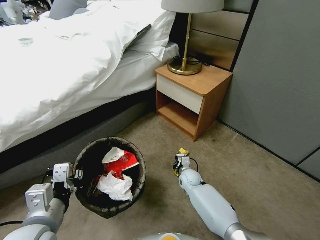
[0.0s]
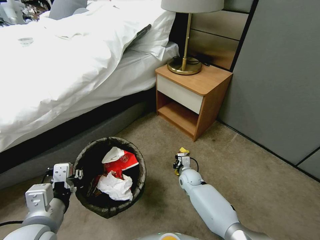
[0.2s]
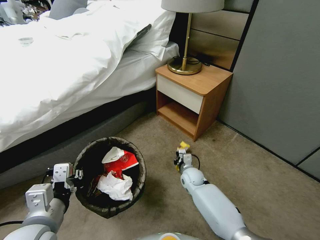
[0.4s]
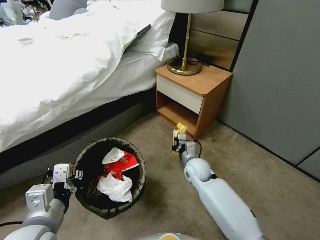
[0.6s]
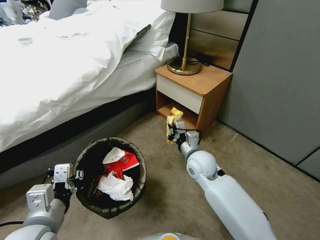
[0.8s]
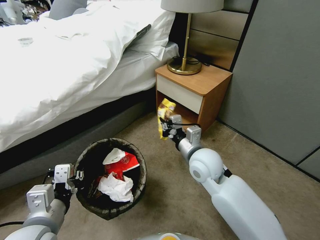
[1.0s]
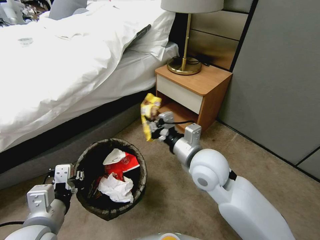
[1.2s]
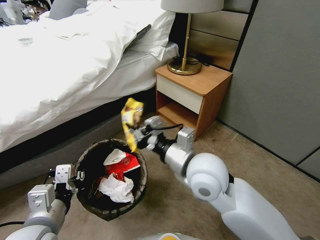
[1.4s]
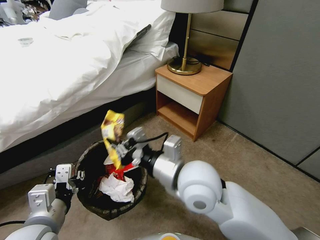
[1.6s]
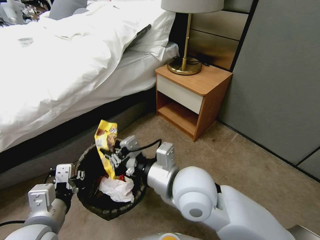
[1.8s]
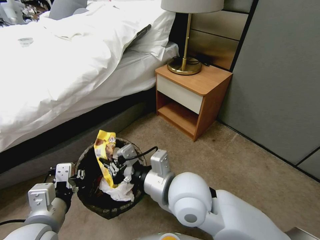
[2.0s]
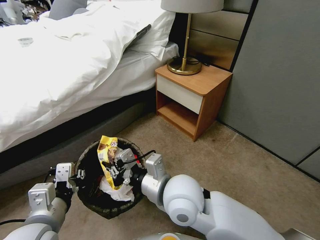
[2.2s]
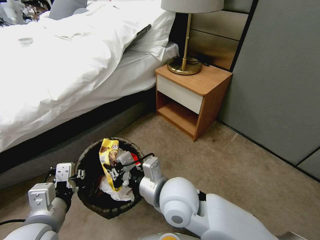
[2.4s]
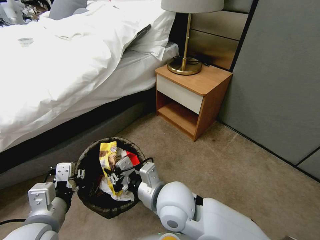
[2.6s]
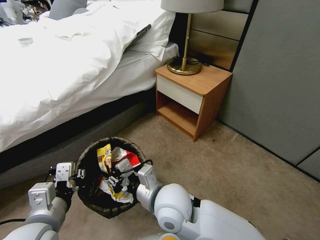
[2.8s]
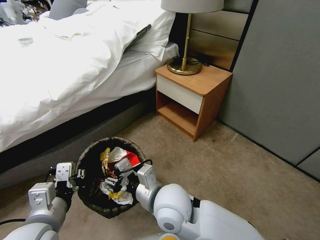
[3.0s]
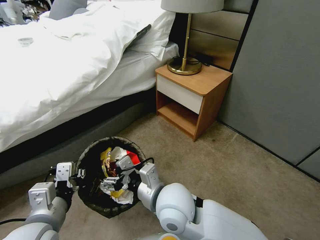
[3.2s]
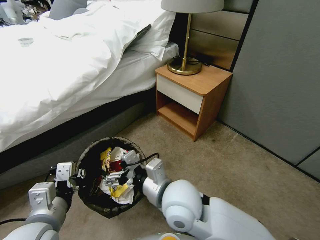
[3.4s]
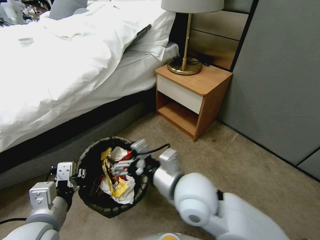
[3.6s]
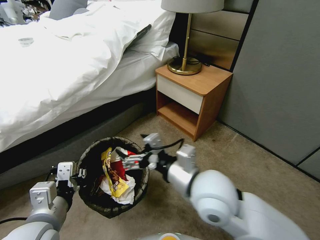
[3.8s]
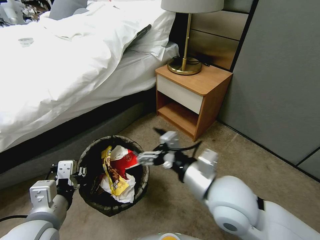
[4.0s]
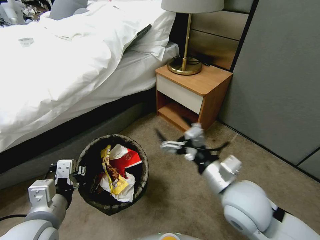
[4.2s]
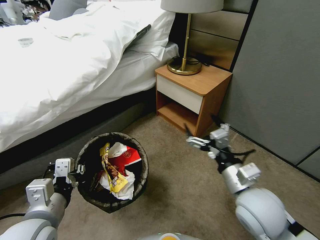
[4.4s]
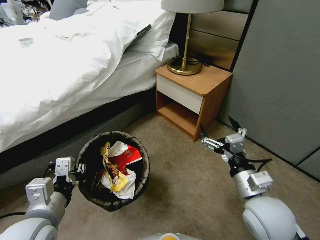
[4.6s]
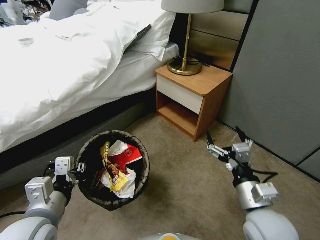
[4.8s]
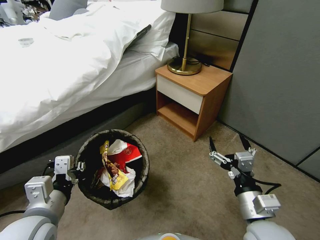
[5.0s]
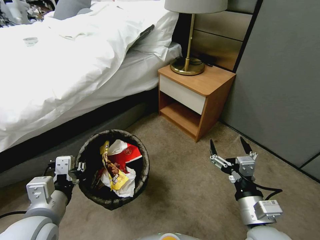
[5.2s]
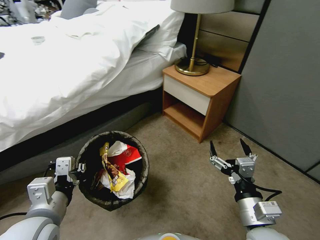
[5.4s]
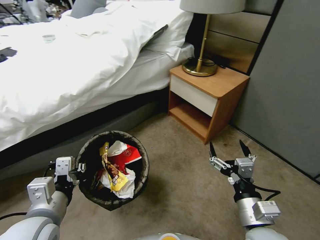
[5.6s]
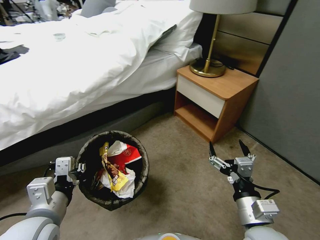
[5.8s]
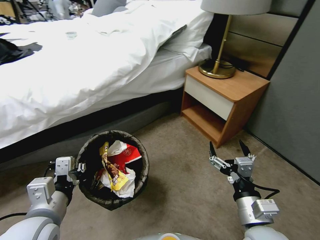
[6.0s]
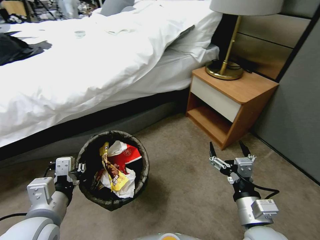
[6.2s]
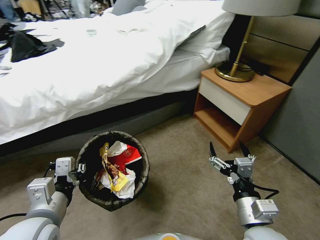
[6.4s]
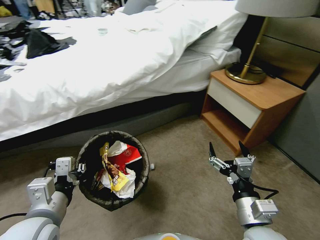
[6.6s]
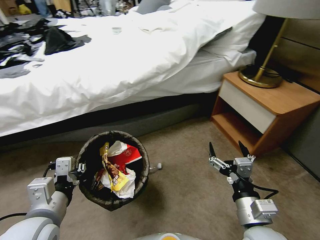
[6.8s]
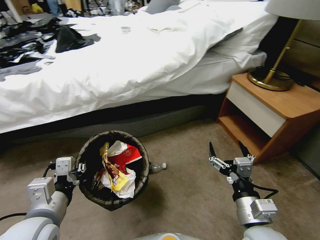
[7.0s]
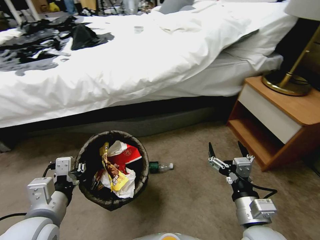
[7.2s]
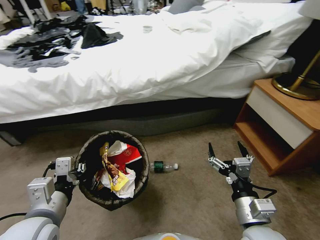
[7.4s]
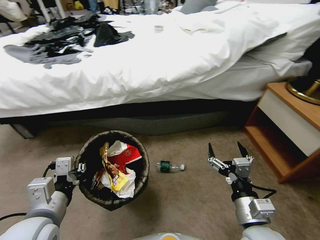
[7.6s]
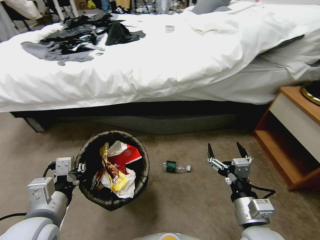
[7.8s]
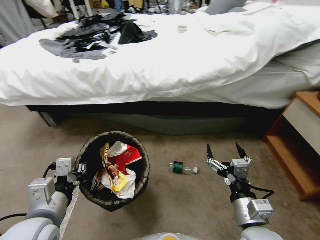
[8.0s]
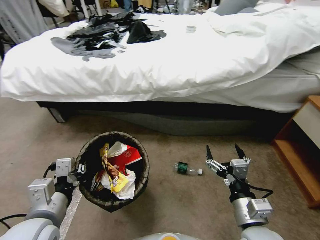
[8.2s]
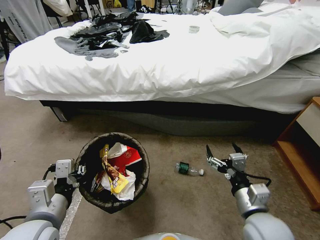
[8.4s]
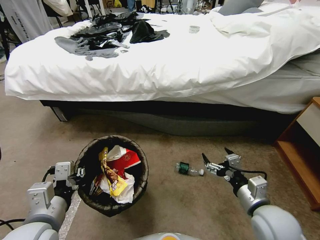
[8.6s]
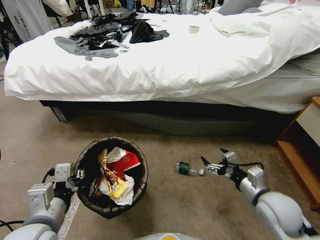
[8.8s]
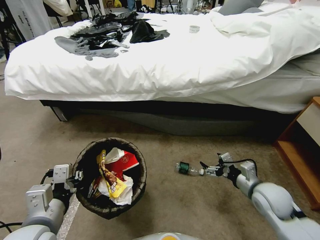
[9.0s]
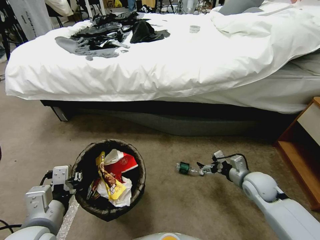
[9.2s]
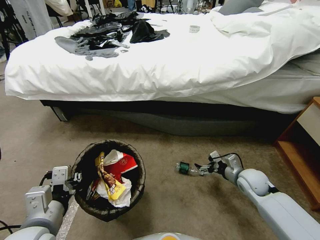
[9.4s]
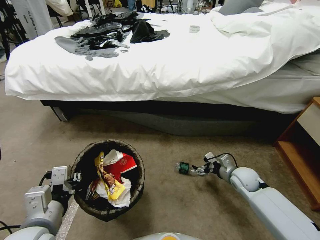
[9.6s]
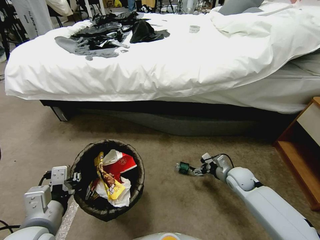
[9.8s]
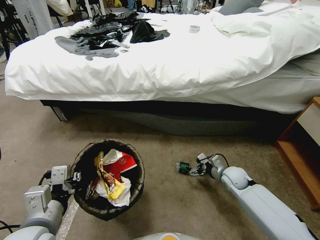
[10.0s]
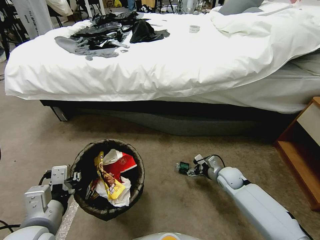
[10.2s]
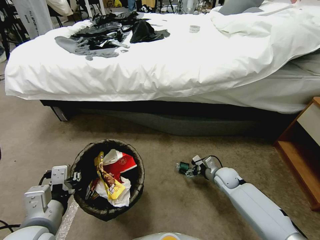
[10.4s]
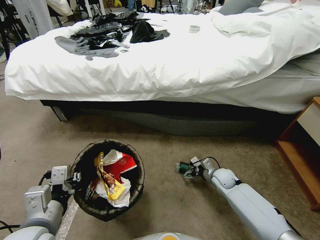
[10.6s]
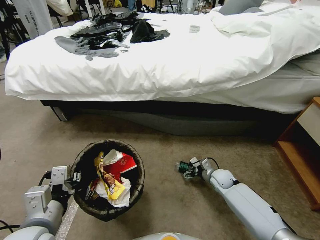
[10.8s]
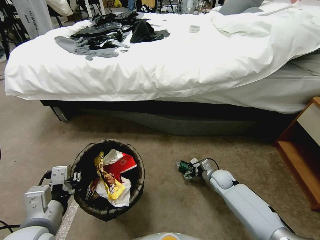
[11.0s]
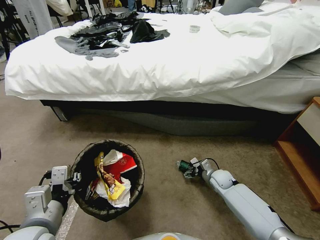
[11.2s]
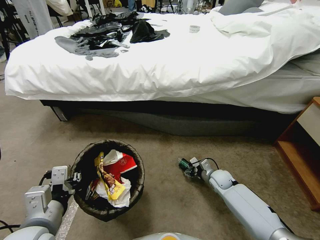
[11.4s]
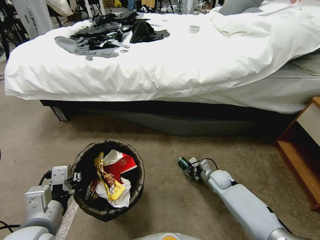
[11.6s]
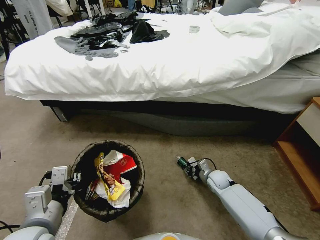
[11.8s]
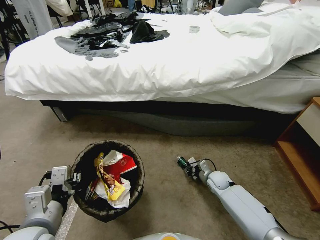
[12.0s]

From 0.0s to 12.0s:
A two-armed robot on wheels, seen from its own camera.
Task of the whole recording: Pick up the trash bin, then pick up the garbage from the floor and place it into the trash bin.
From 0.0s to 1.6s: The right gripper shifts approximately 35 cm upward.
From 1.6s to 3.0s: The right gripper is displaced downward and to the left by approximately 10 cm, and opens its fingers.
From 3.0s to 4.4s: The right gripper travels to the right by some 20 cm, and opens.
From 4.4s to 6.0s: The right gripper shifts about 5 cm backward.
From 7.6s to 9.0s: The right gripper shifts about 15 cm forward, to the right and downward.
From 9.0s to 10.4s: The right gripper moves downward, forward and to the left, roughly 20 cm.
From 10.4s to 12.0s: The right gripper shifts by some 5 cm, and closes up.

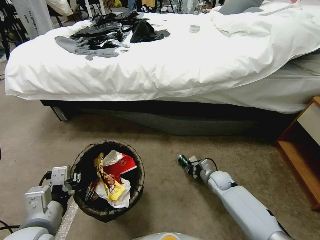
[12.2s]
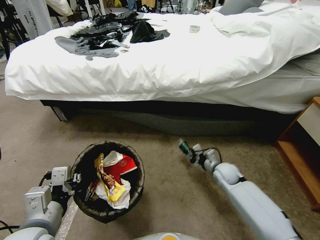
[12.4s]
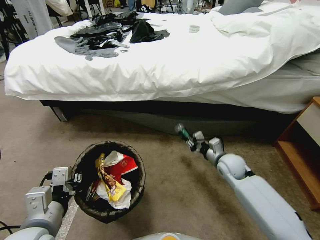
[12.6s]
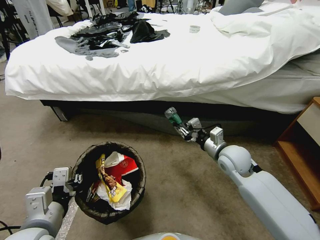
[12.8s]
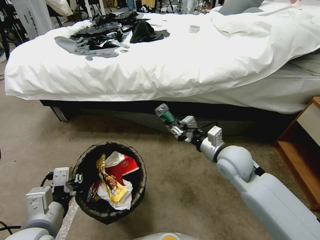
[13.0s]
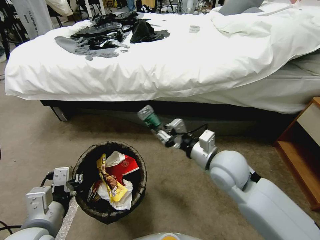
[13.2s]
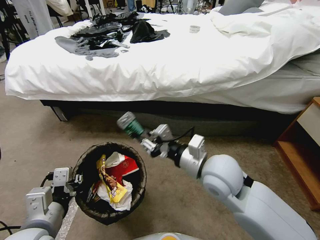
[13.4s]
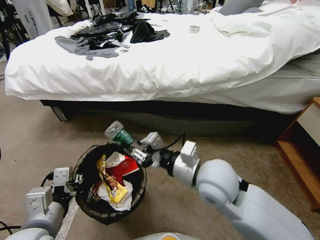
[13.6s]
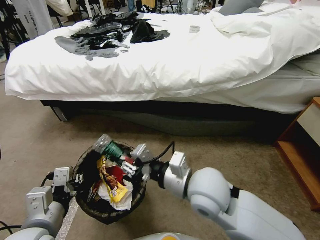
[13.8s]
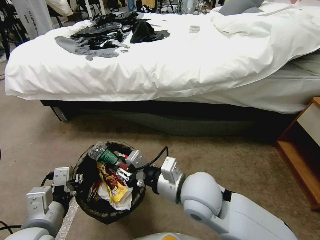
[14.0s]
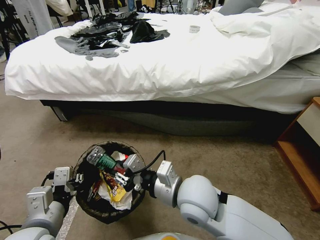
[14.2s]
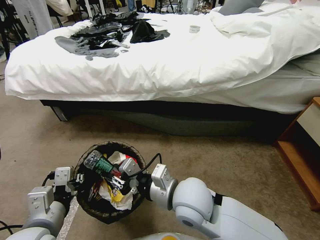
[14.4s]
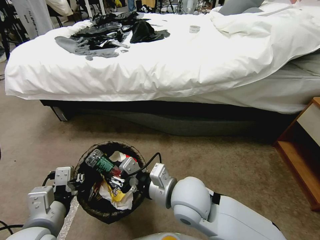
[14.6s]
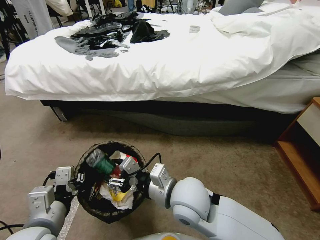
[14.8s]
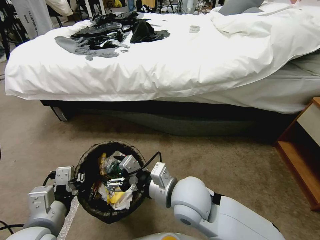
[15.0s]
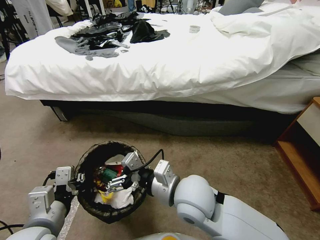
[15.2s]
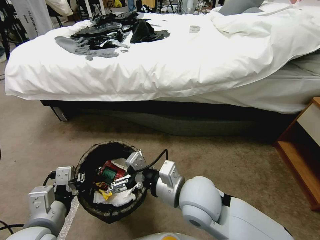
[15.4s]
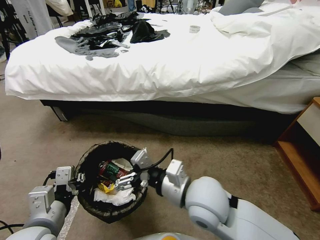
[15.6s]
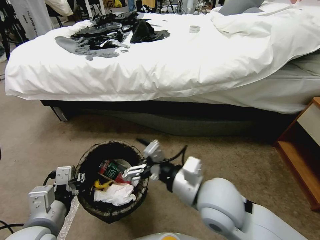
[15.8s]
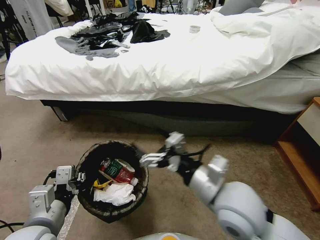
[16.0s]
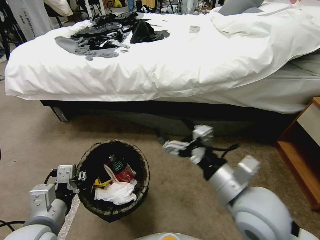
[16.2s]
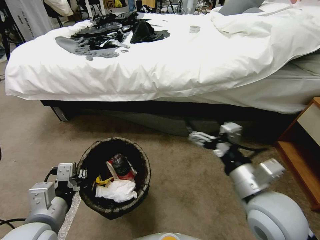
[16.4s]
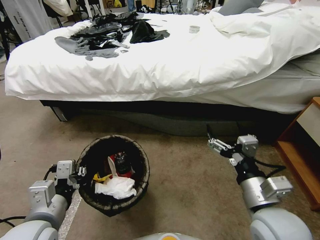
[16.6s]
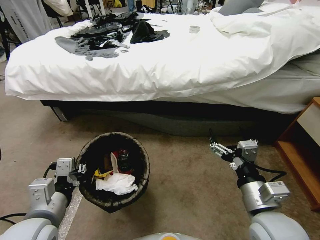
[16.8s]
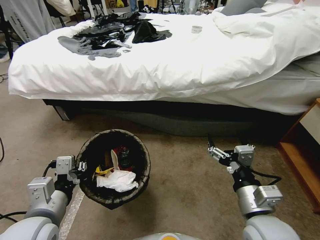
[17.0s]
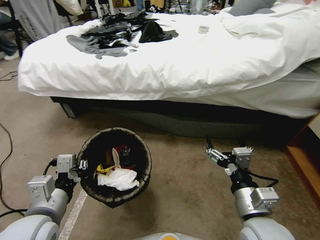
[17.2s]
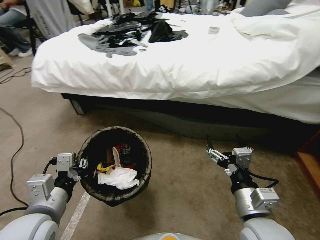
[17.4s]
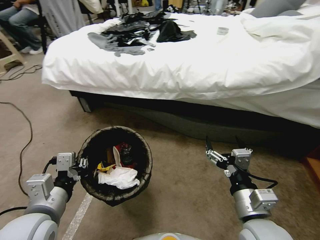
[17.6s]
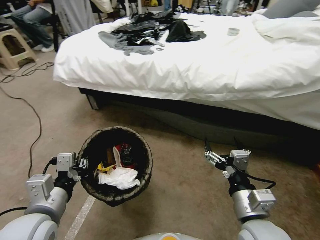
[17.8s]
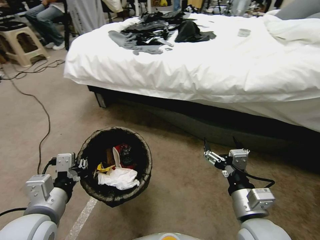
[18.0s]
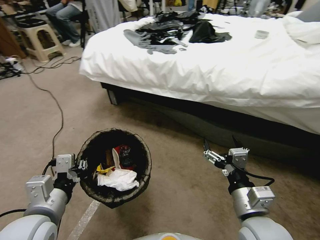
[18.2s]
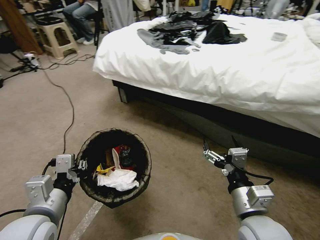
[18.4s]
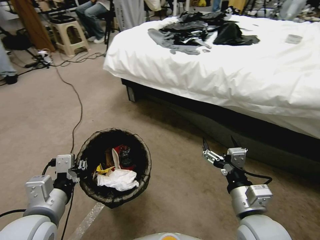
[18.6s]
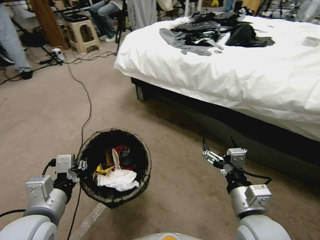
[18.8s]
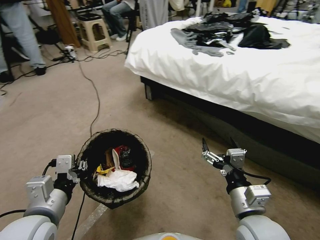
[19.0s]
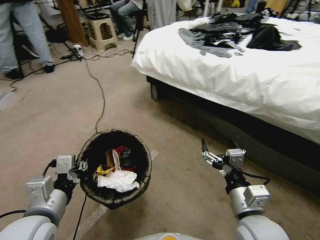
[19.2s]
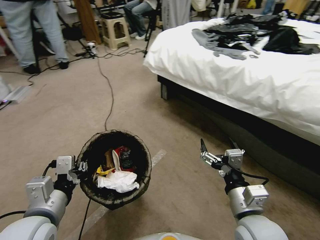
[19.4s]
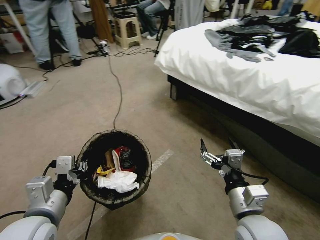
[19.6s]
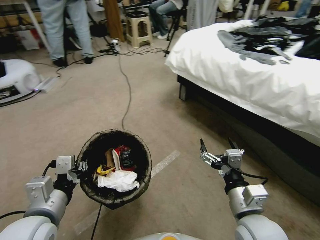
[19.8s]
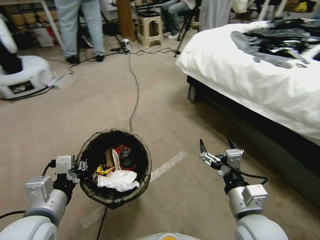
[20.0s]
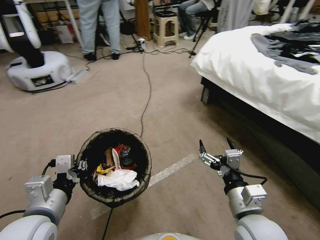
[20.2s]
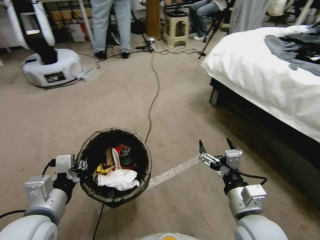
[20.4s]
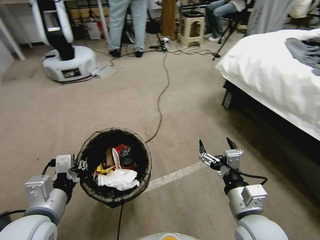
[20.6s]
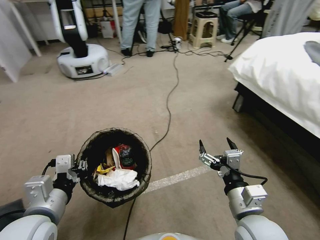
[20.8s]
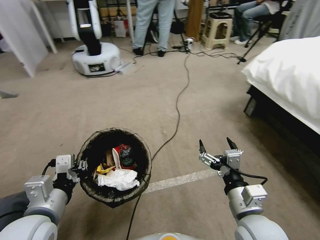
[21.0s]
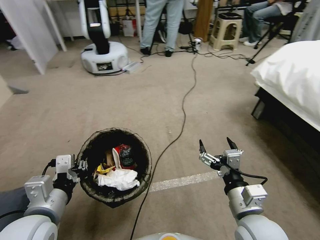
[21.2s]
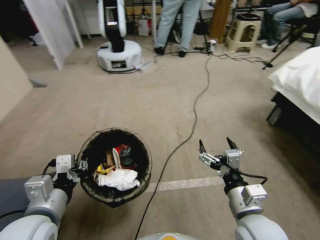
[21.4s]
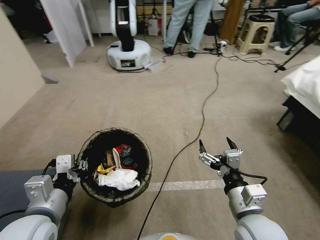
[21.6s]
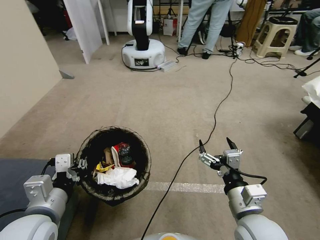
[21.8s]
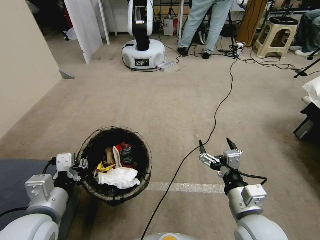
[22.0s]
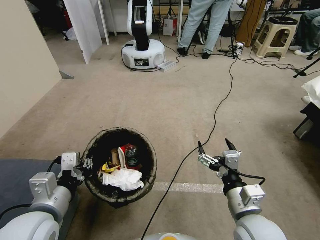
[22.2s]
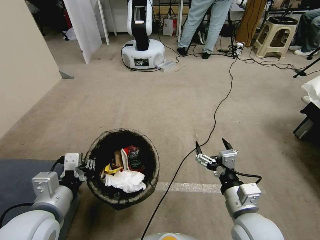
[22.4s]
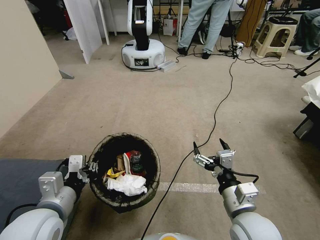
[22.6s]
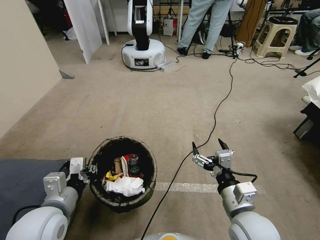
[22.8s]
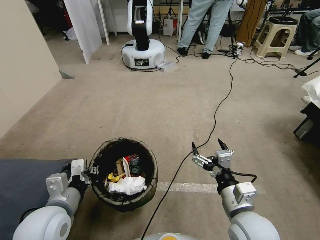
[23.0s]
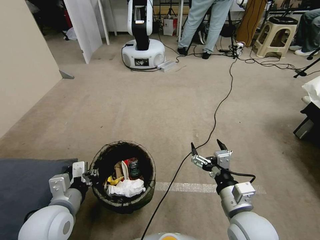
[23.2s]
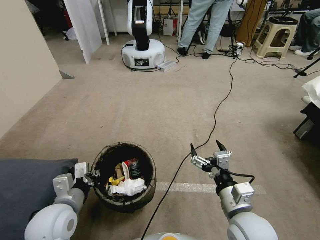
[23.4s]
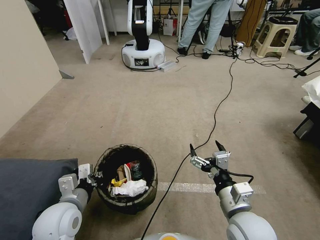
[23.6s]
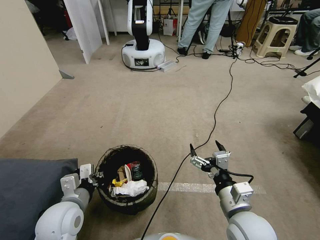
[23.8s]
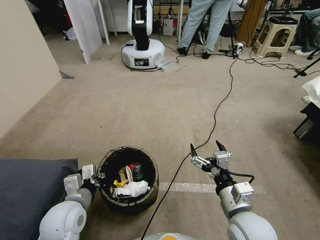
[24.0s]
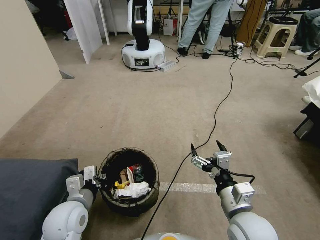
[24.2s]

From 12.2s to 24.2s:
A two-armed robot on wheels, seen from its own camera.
Task of the whole recording: Pick up the trash bin, then pick up the garbage from the floor and place it into the trash bin.
From 12.2s to 13.8s: The right gripper heads upward, to the left and backward, covering approximately 40 cm.
From 13.8s to 15.2s: The right gripper opens its fingers.
From 15.2s to 16.6s: The right gripper shifts some 15 cm to the right.
From 22.6s to 24.2s: The left gripper travels downward by about 10 cm.
